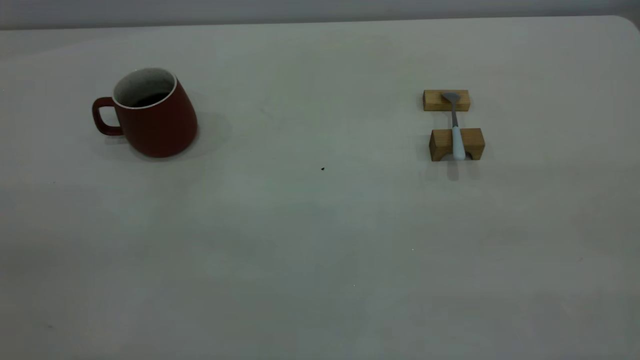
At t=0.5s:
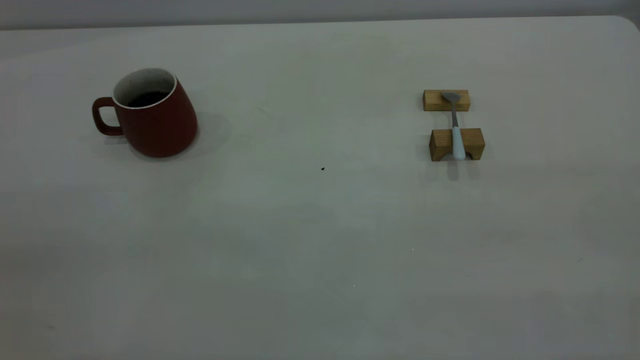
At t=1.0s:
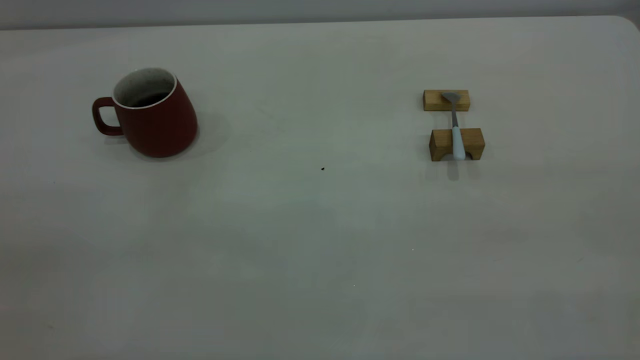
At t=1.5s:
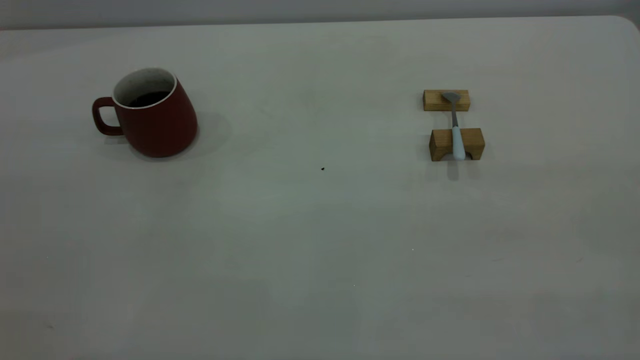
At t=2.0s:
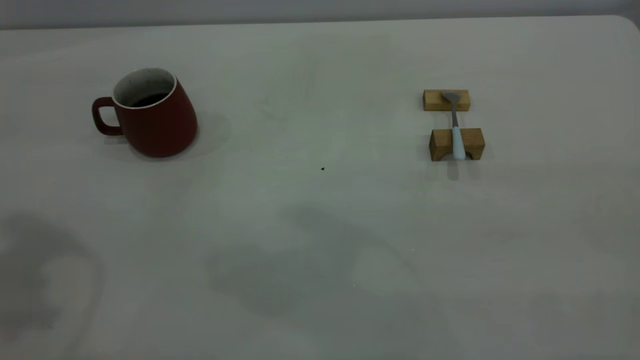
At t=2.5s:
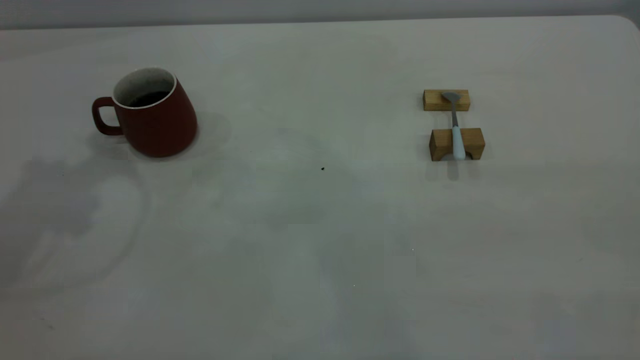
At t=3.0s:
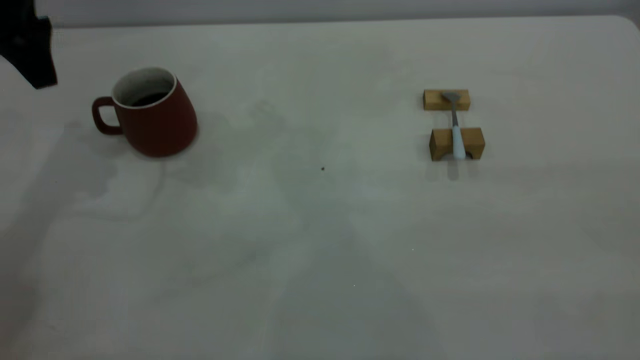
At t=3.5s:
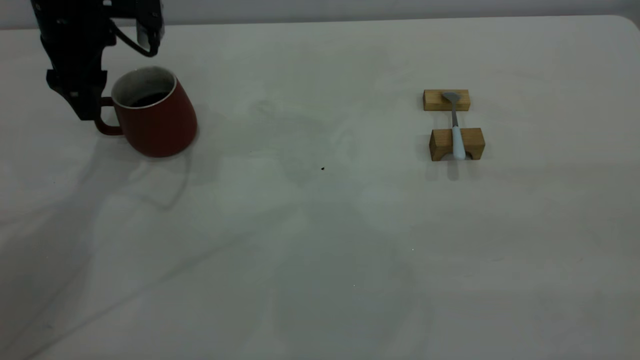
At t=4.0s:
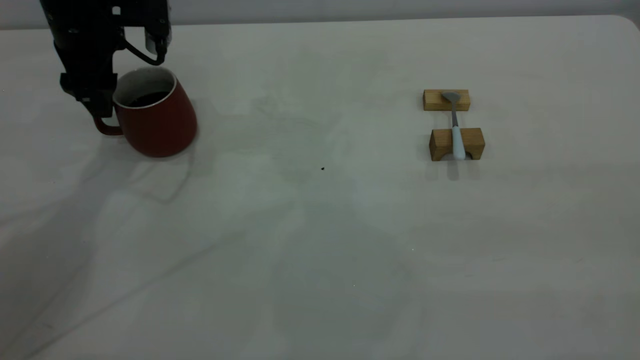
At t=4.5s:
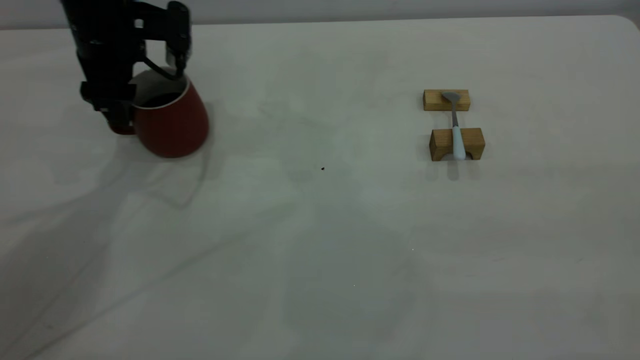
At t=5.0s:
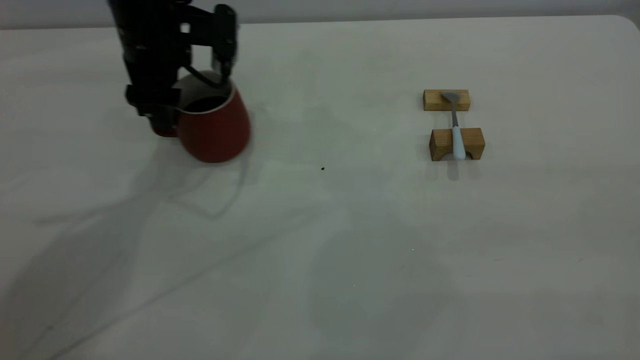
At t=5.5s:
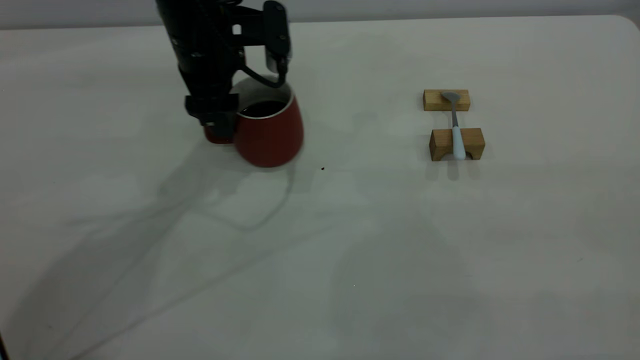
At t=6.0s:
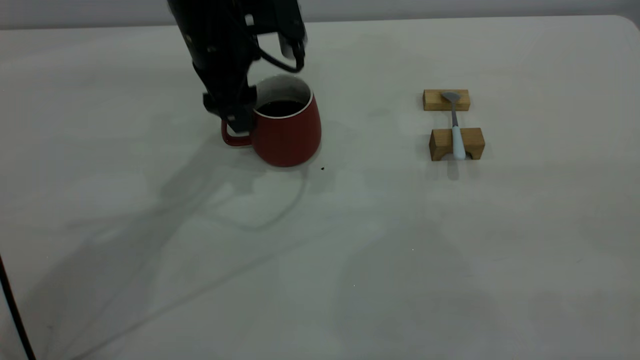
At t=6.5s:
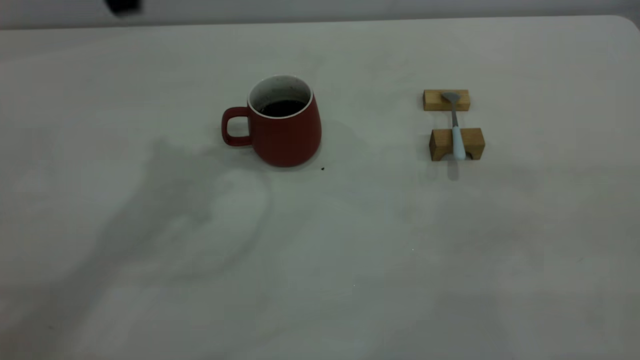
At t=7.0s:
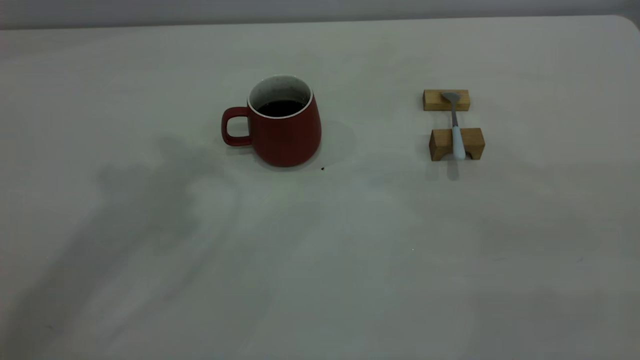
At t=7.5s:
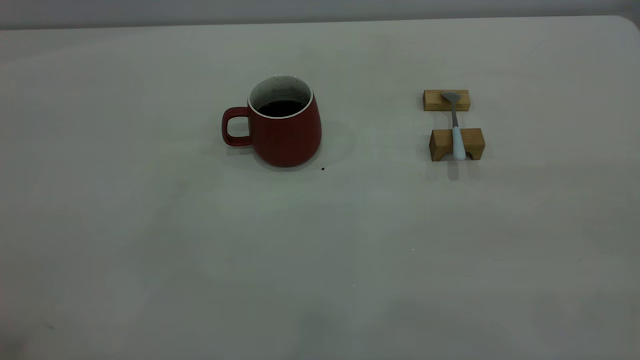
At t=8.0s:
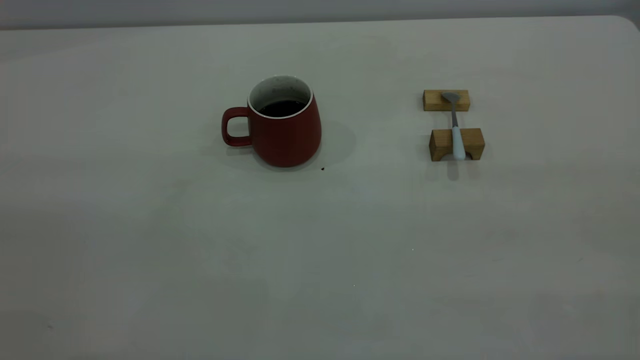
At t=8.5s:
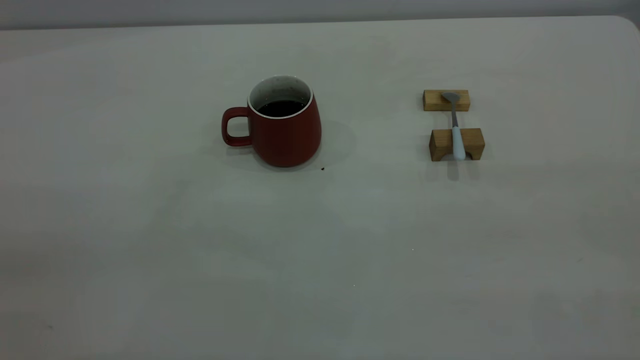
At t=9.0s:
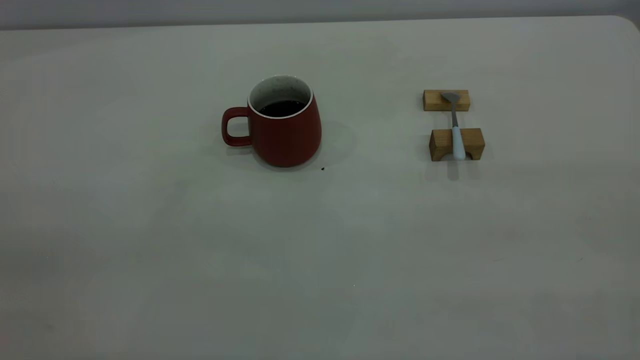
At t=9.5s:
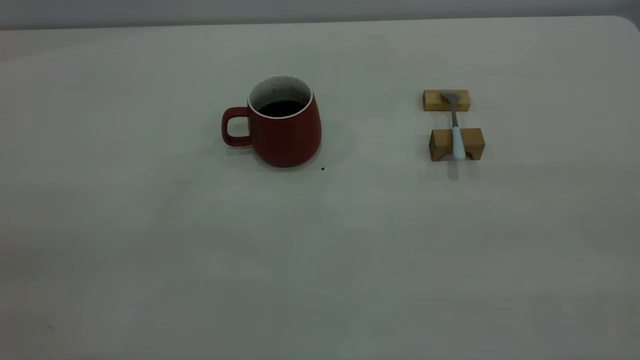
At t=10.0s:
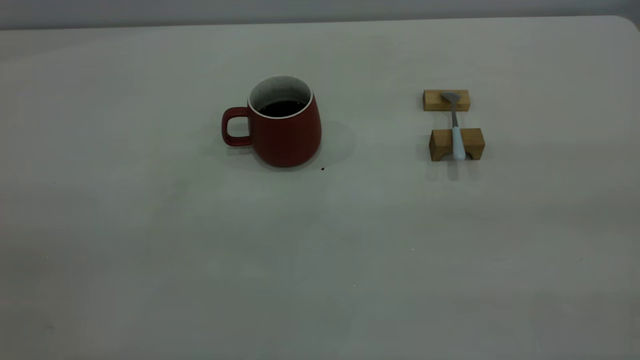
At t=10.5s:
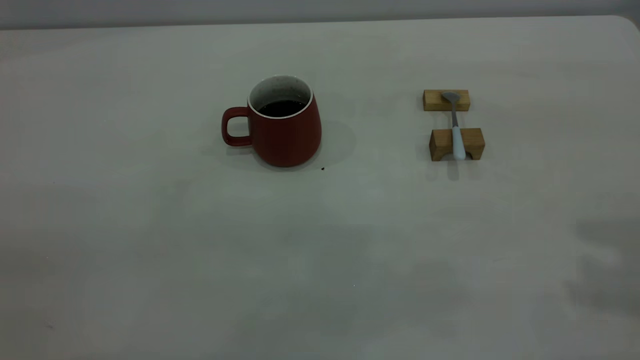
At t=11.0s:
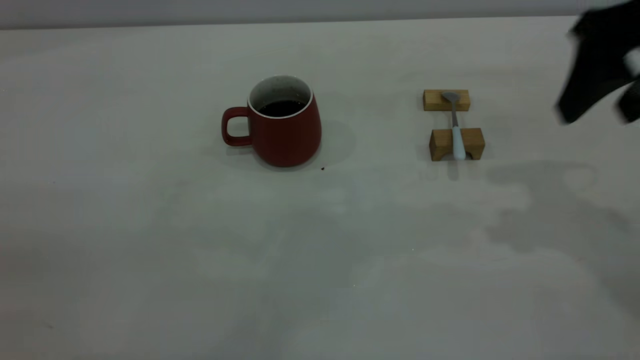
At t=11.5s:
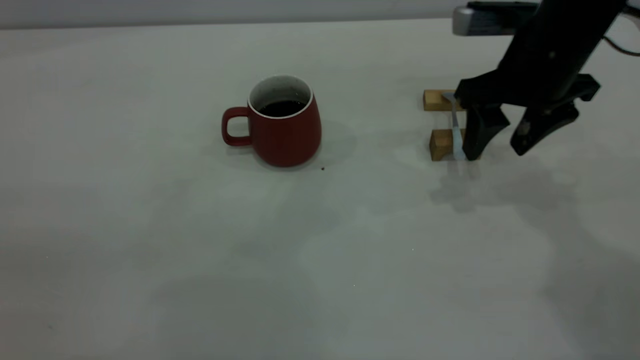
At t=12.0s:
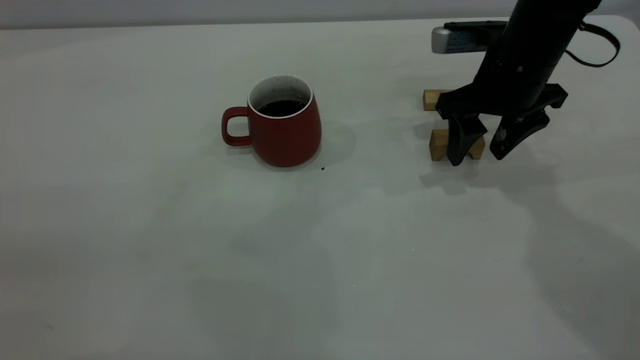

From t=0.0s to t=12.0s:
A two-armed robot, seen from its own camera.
Step, from t=0.0s to t=6.0s: Move the cup with coffee to the center of view.
From t=2.0s to t=4.0s: The left gripper heads downward and forward, covering about 30 cm, and opens its fingers.
From t=4.0s to t=6.0s: The left gripper travels to the right by about 15 cm.
From t=6.0s to t=8.0s: The left gripper heads backward, upward and to the left, covering roughly 50 cm.
From t=10.0s to t=12.0s: The right gripper shifts approximately 50 cm forward and downward, and opens up.

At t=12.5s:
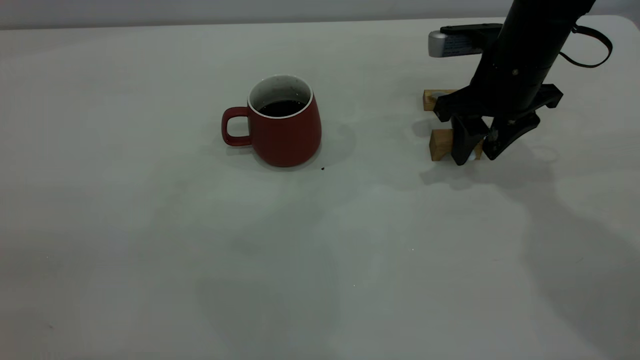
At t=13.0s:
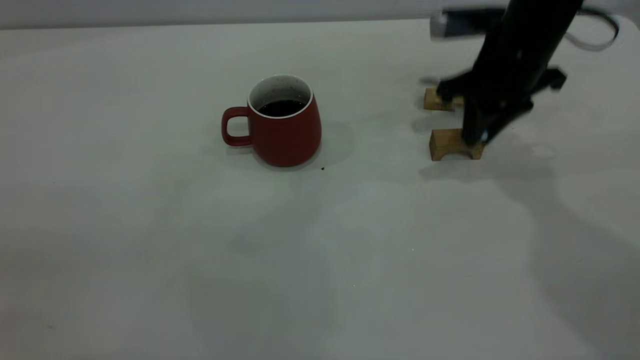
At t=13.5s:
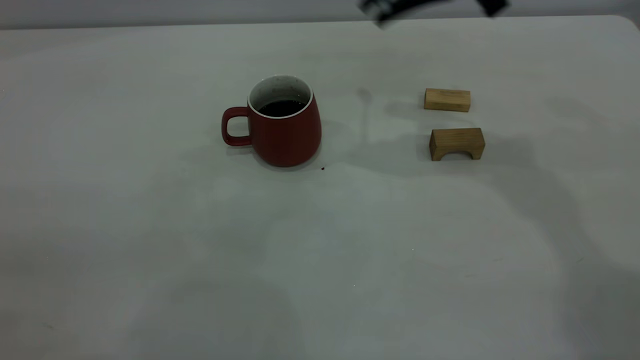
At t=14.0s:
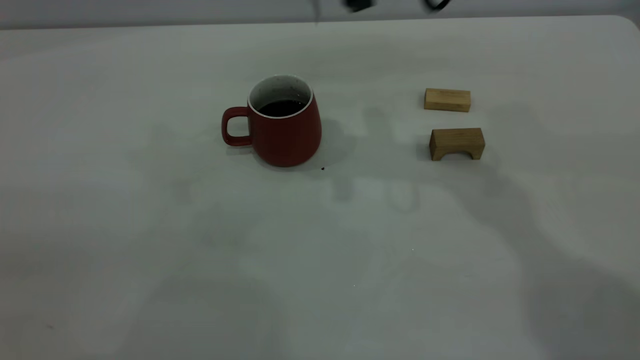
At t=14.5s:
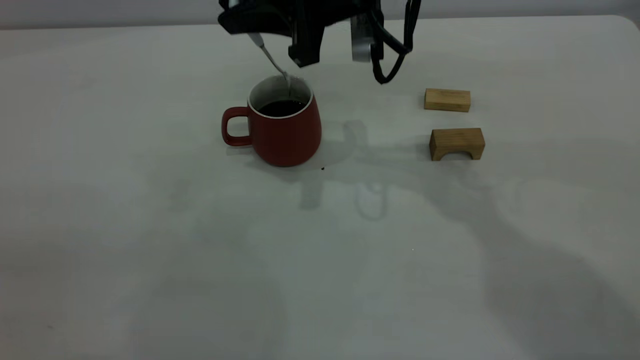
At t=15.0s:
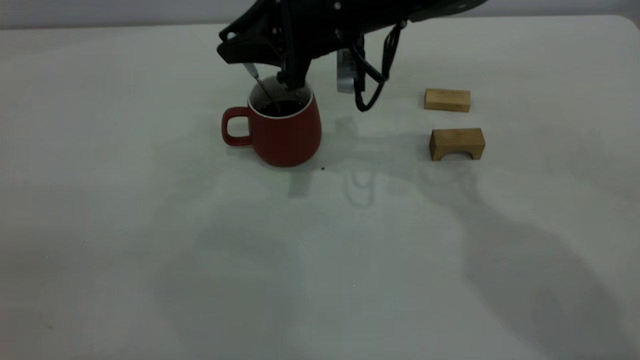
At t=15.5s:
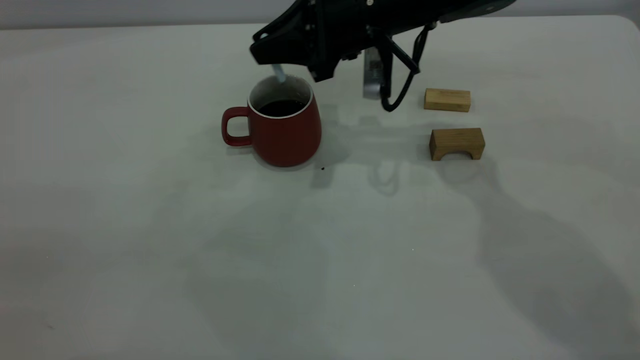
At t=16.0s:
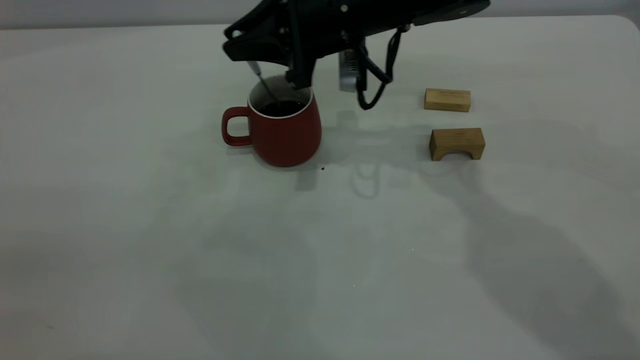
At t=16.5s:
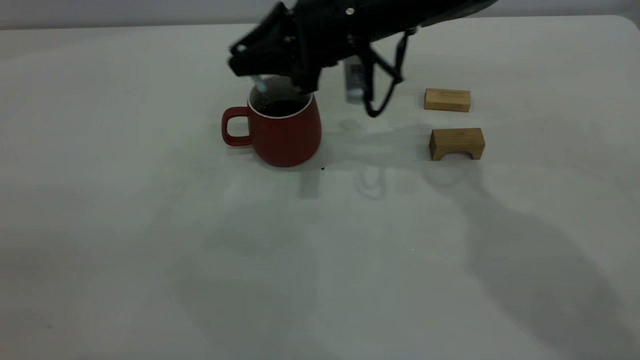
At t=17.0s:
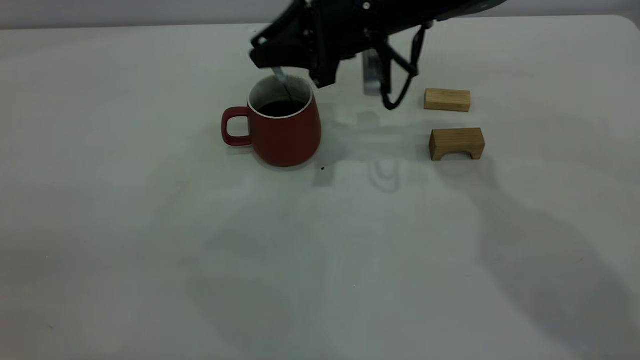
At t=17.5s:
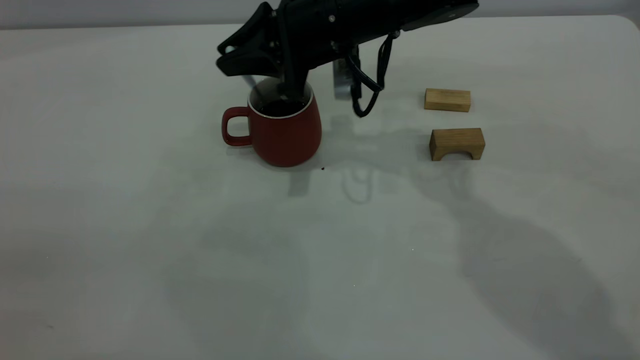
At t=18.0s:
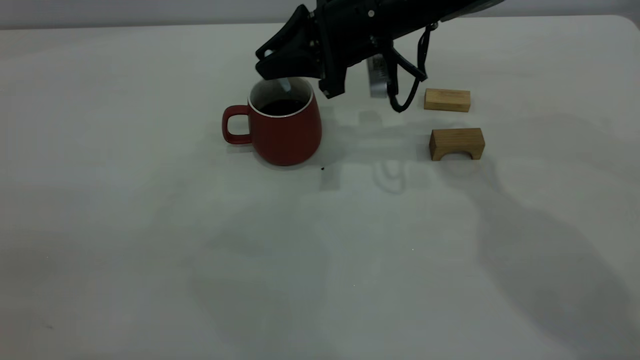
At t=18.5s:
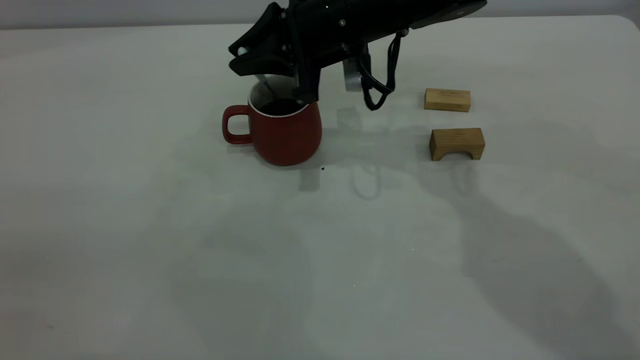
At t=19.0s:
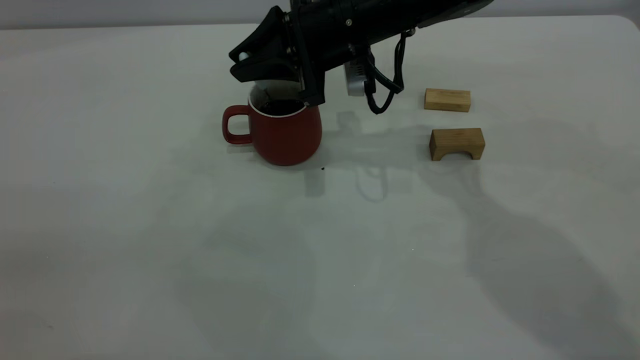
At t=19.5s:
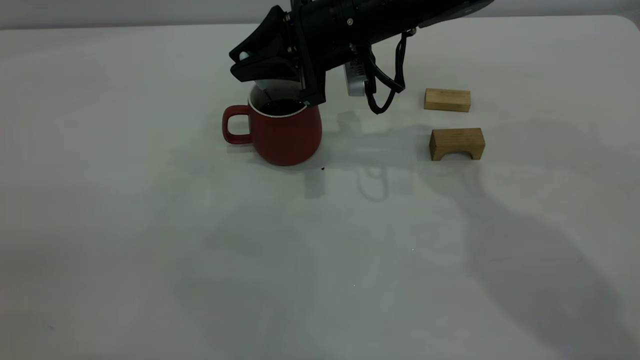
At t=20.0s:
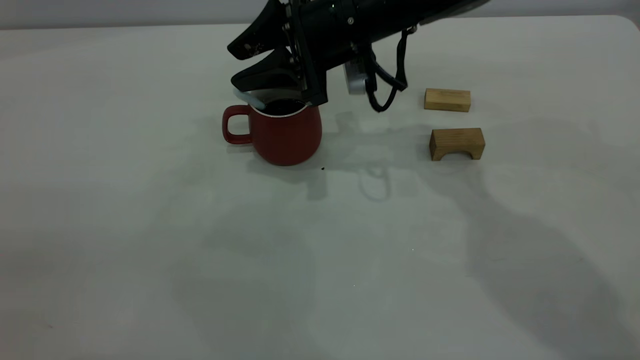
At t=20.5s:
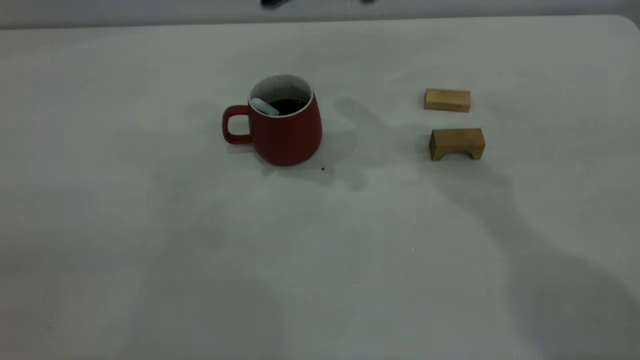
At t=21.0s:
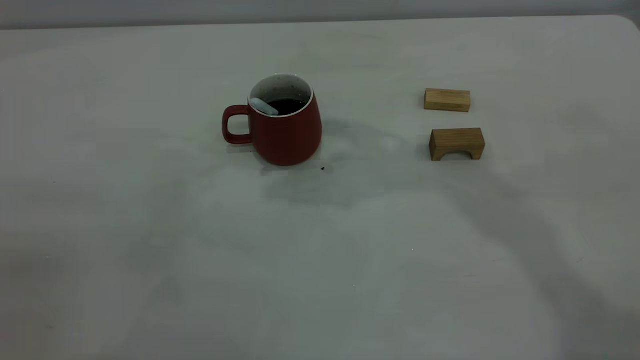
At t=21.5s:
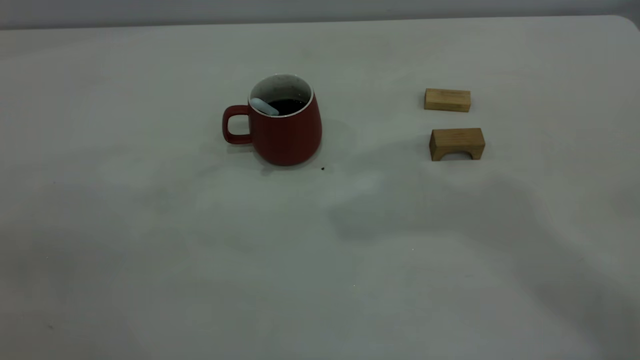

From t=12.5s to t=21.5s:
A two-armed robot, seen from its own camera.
Step, from t=13.5s to t=20.0s: Stir the coffee in the cup.
From t=12.5s to t=14.5s: The right gripper moves to the left and upward, approximately 15 cm, and closes up.
From t=14.5s to t=17.0s: The right gripper heads downward, covering about 5 cm.
From t=19.5s to t=21.5s: The right gripper heads upward, covering about 35 cm, and opens.
